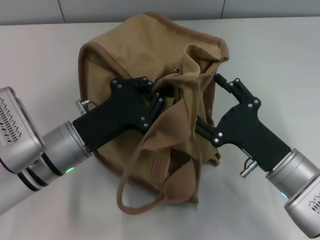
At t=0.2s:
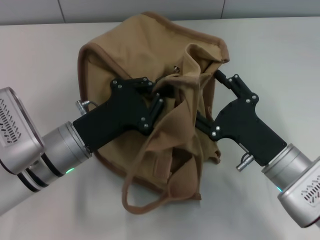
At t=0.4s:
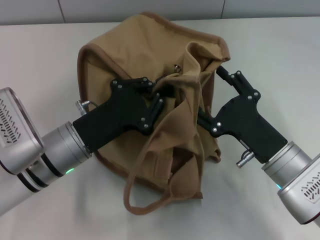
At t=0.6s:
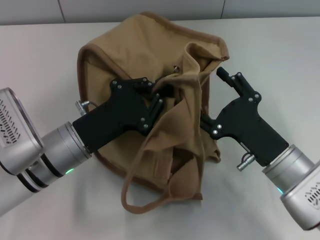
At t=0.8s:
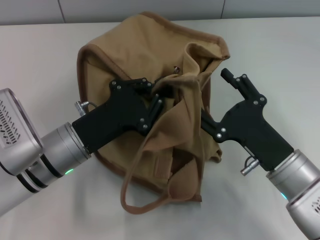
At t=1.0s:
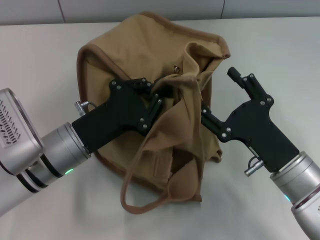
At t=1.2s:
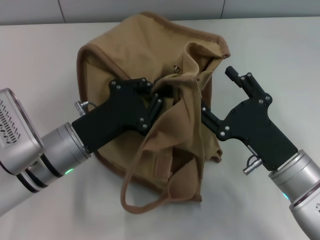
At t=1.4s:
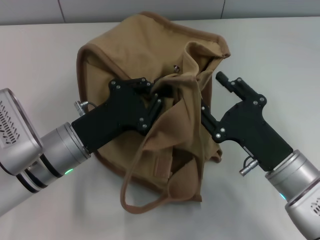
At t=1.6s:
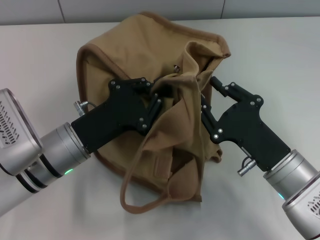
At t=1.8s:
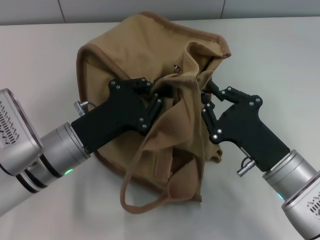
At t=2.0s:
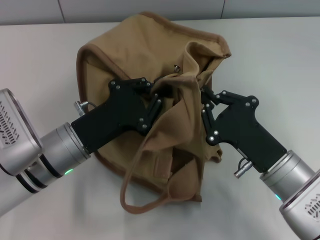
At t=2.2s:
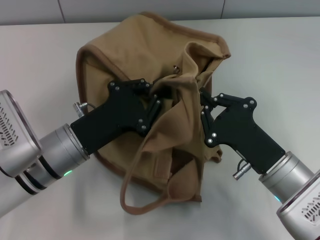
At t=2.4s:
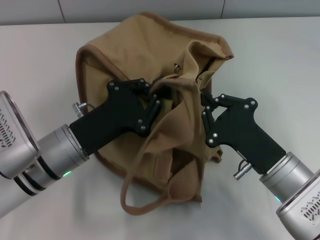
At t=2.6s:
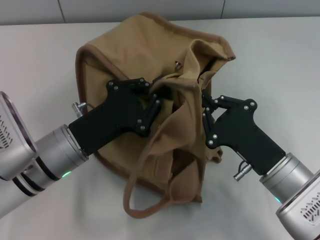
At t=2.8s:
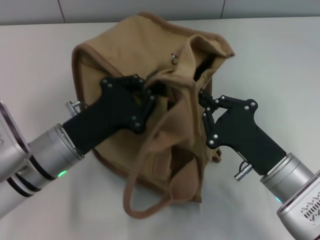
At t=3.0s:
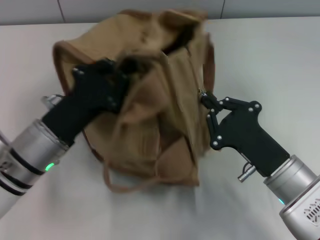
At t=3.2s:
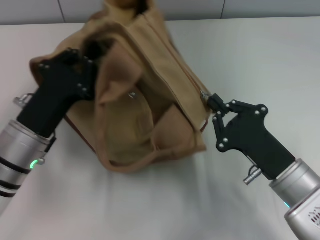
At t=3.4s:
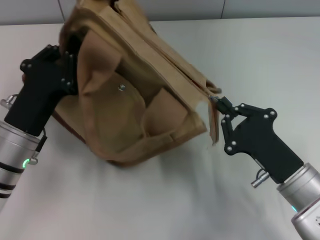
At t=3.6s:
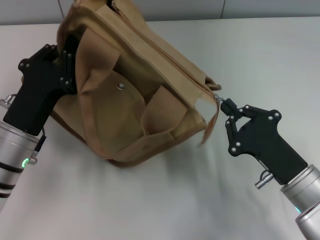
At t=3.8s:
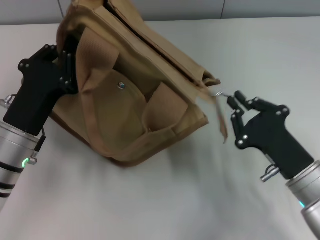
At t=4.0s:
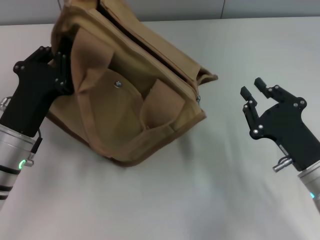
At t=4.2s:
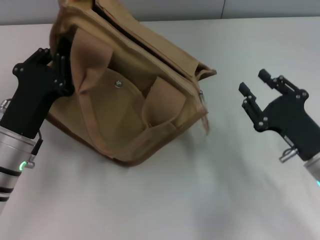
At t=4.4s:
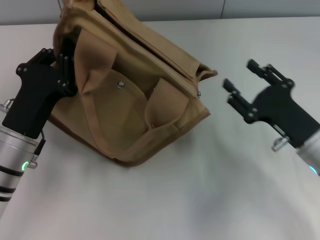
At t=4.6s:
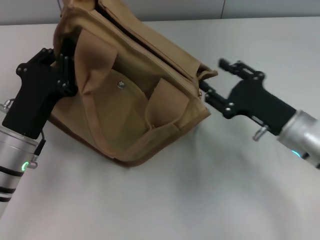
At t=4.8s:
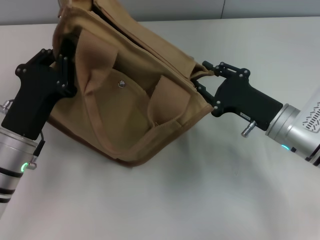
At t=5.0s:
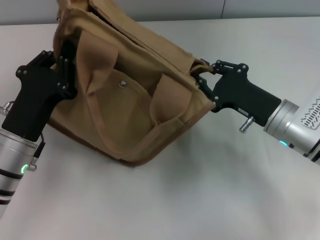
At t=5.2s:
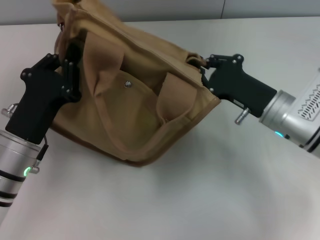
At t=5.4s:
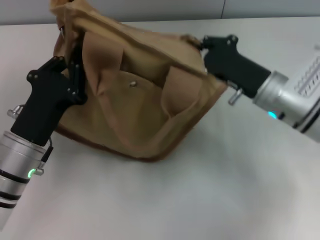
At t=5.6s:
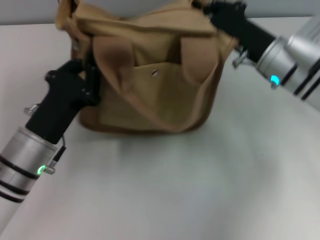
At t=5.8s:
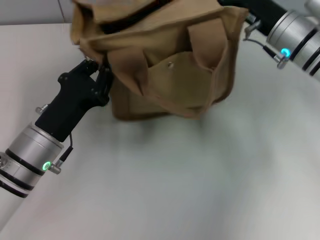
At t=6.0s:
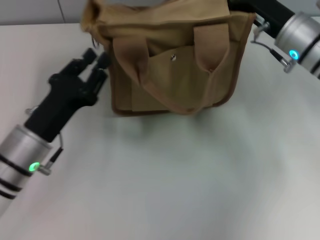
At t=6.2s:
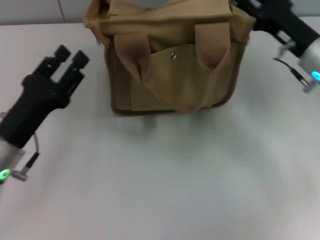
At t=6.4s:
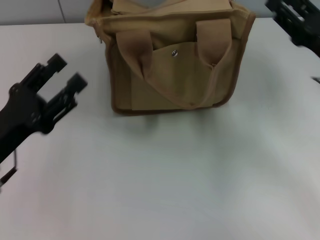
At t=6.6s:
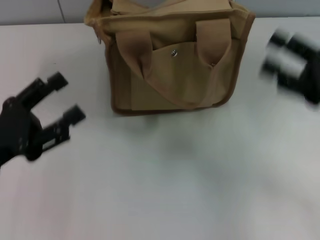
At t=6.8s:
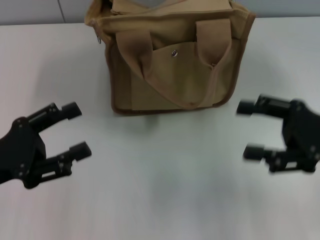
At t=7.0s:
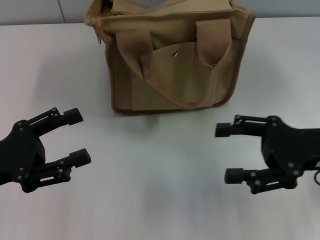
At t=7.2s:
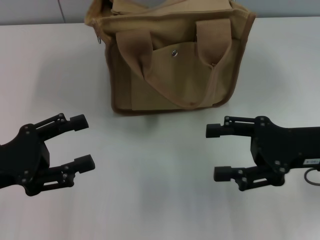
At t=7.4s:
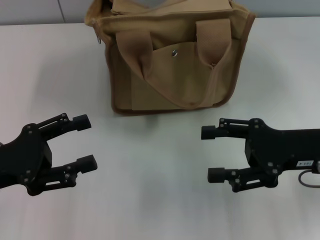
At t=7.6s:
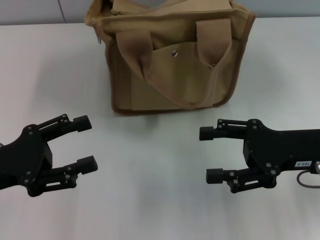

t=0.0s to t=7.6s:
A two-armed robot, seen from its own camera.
Step, t=0.0s to t=3.8s: Pull open the zipper with your right hand.
Step, t=4.0s to t=6.0s: Grab the bag with your left hand.
t=0.0s to t=1.6s: There are only small adjustments of the grippers.
t=1.6s to t=3.0s: The right gripper closes up.
t=3.0s to t=4.6s: The right gripper heads forward, covering some 5 cm, and opens its fingers.
t=4.6s to t=6.0s: The right gripper goes roughly 15 cm forward and upward, and closes.
t=6.0s to t=7.6s: The right gripper travels backward by about 15 cm, and opens up. The left gripper travels to the left by some 10 cm, and opens up.

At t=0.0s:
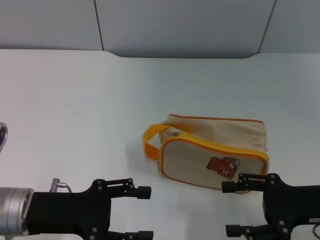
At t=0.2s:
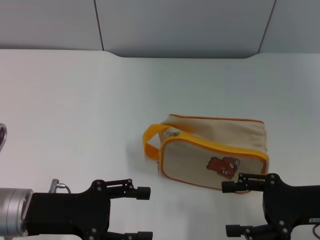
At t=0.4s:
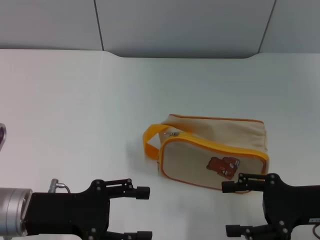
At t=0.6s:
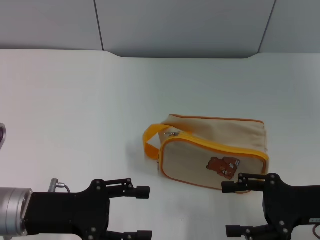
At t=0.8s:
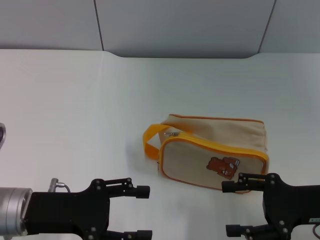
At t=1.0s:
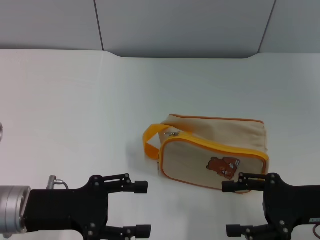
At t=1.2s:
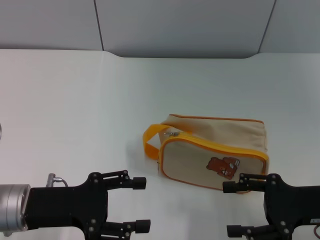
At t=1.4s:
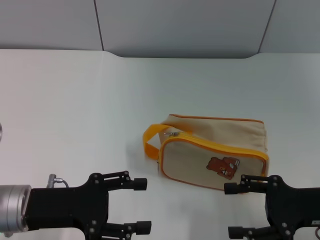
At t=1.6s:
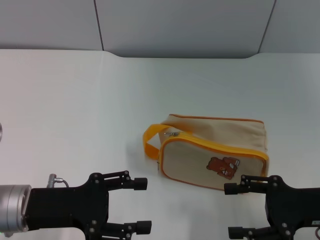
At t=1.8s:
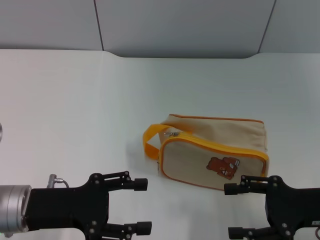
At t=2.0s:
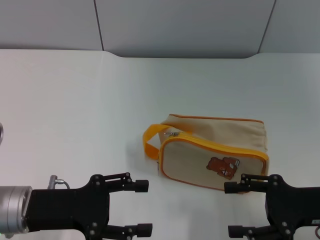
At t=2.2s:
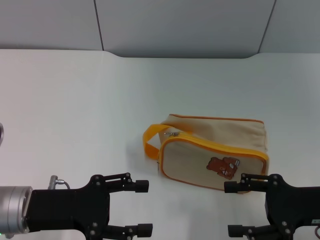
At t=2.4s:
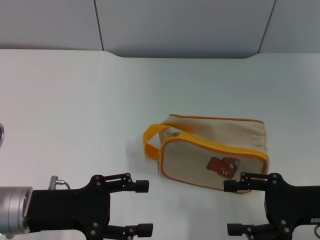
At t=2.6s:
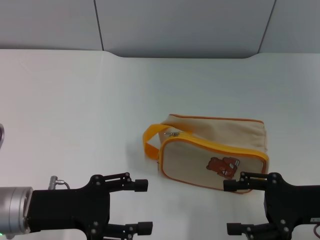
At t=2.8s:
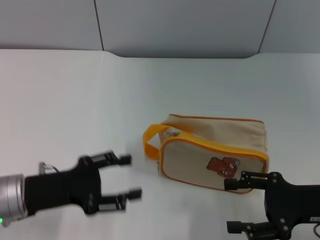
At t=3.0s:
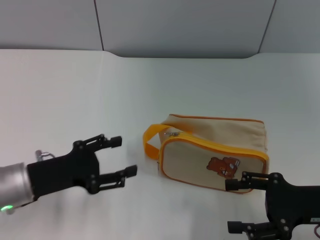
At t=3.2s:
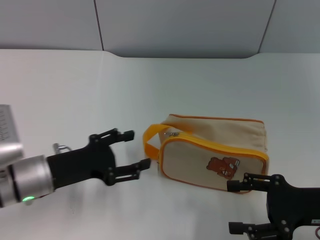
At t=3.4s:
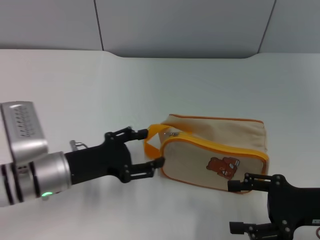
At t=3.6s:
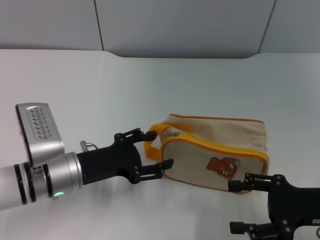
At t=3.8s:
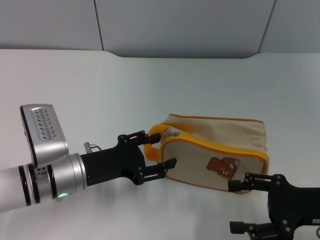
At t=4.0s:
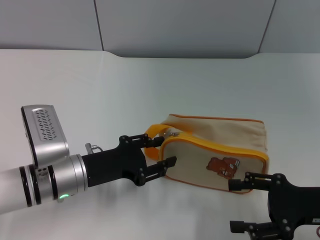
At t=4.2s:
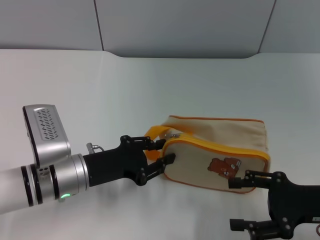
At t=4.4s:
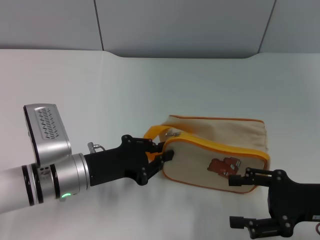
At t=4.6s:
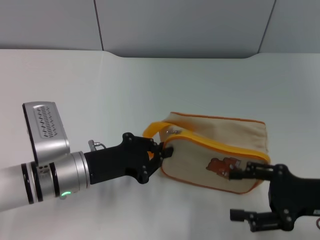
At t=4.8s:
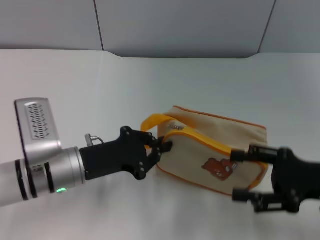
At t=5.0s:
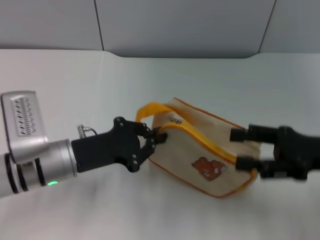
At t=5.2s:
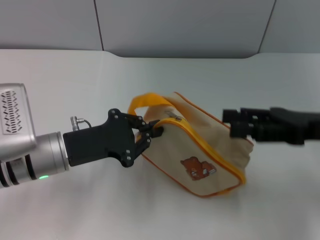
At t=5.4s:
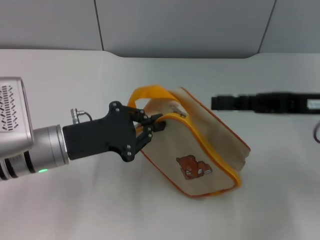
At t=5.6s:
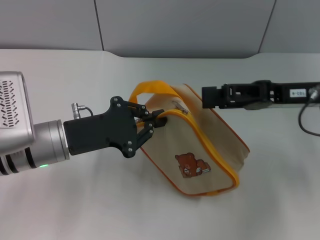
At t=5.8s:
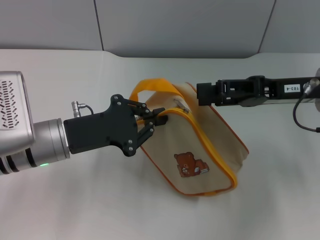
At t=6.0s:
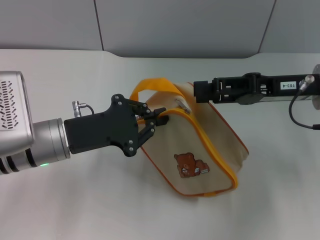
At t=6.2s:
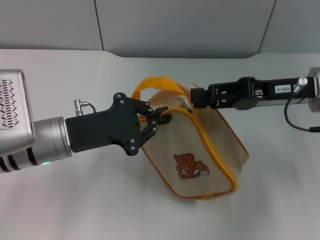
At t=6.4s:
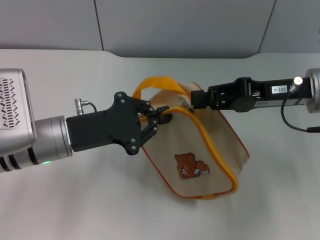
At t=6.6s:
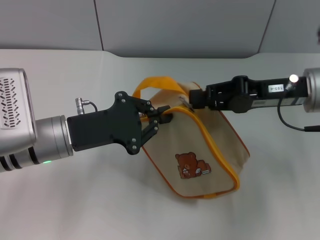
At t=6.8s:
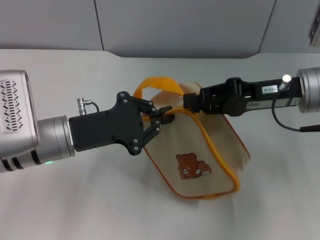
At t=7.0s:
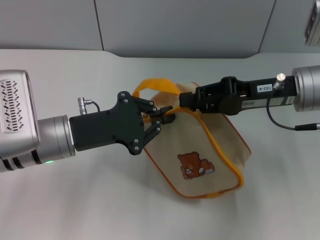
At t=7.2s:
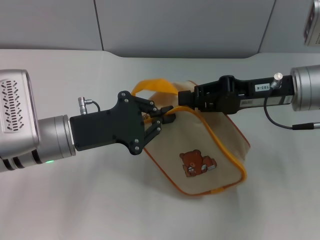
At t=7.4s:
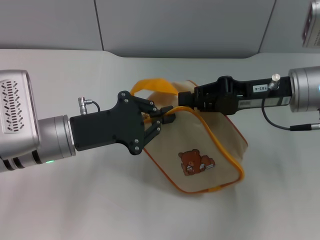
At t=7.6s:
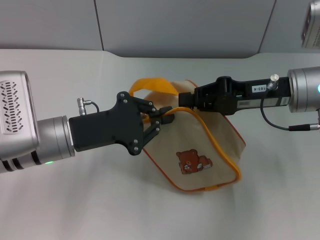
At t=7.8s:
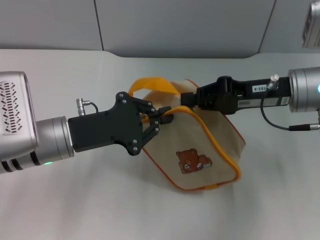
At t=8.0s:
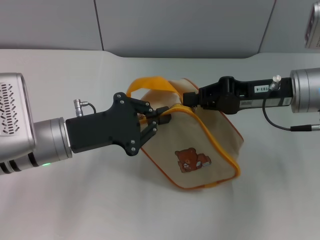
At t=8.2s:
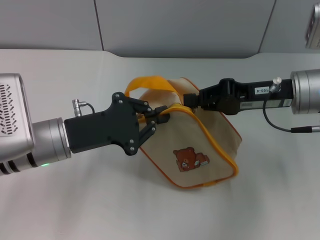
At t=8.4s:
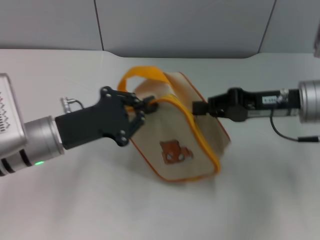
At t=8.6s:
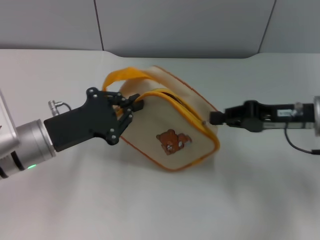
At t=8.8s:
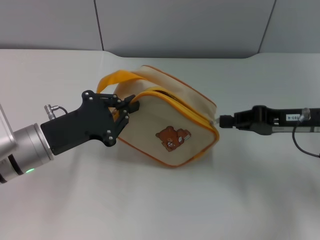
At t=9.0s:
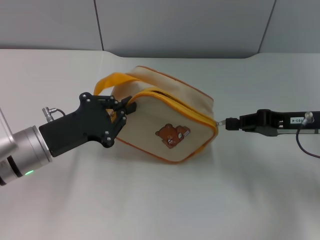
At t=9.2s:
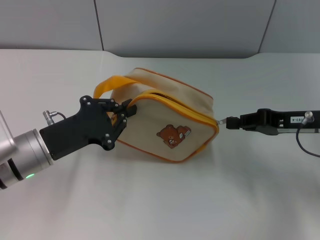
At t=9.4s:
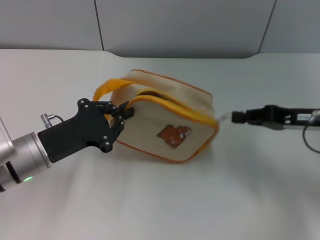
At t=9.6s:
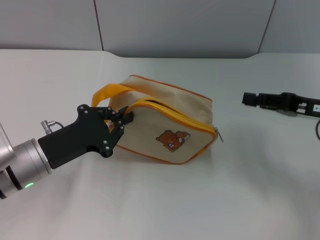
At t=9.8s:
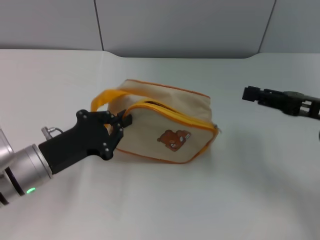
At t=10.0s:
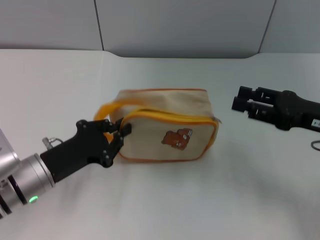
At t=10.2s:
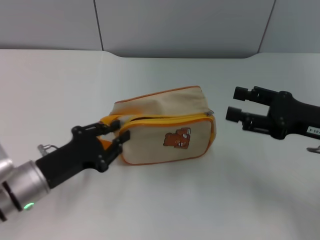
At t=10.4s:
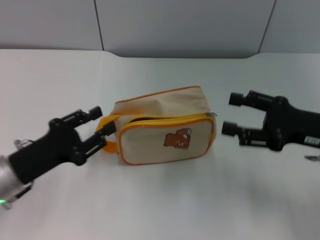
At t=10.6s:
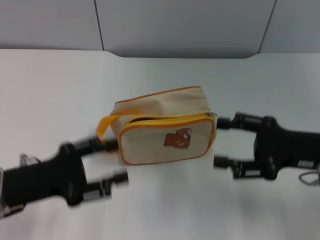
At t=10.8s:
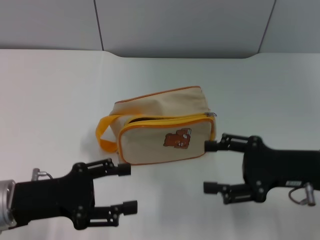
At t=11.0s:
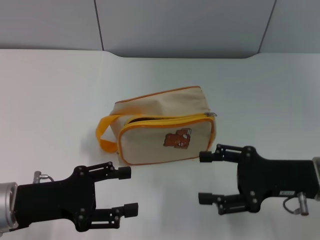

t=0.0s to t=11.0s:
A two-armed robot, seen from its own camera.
Step, t=0.0s to t=5.2s: Pick up the bag with left gripper.
Step, t=5.4s to t=9.4s: Unzip the zipper of bag with right gripper.
Step, t=9.6s to t=10.2s: Place the bag on the table with left gripper.
t=0.0s to t=1.6s: Both grippers stay about where they are.
t=1.6s to t=3.2s: The left gripper shifts by roughly 5 cm.
t=3.2s to t=4.8s: The left gripper closes its fingers.
t=4.8s to t=6.2s: The right gripper moves forward and upward, approximately 10 cm.
t=6.2s to t=7.8s: The right gripper closes its fingers.
t=7.8s to t=9.4s: The left gripper ends up roughly 5 cm from where it was, while the right gripper heads to the right, covering approximately 5 cm.
t=9.4s to t=11.0s: The two grippers go roughly 5 cm backward. The left gripper opens. The right gripper opens its fingers.

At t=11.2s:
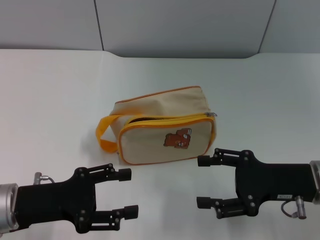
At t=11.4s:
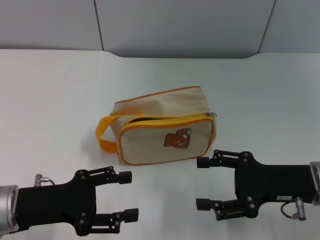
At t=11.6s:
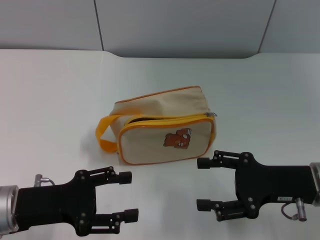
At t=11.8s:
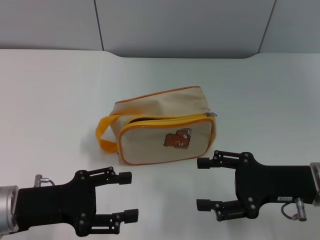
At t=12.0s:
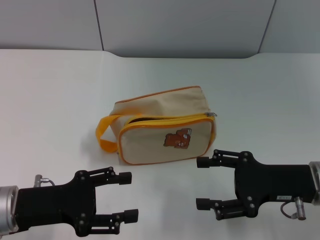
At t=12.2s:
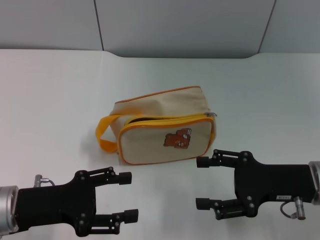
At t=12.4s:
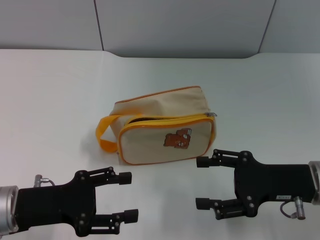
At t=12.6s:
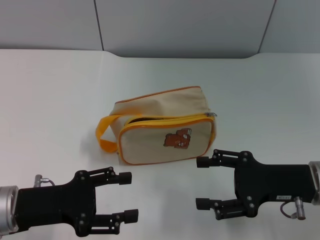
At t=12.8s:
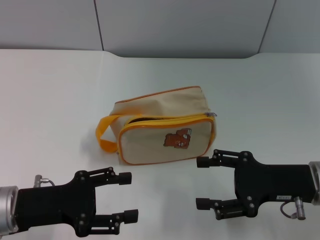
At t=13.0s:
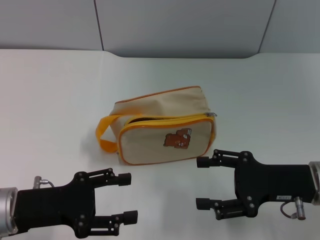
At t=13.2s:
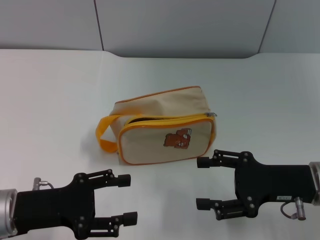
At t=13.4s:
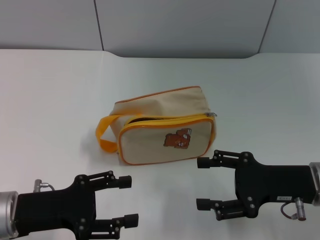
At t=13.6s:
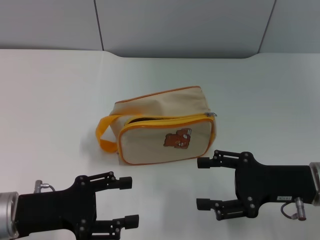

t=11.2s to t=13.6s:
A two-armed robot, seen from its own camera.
t=11.2s to t=13.6s: The two grippers keep their place.
